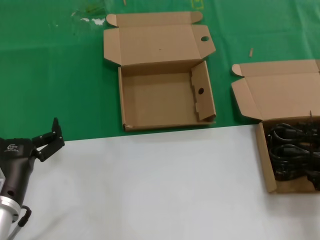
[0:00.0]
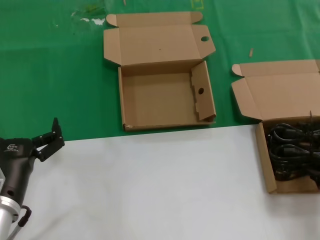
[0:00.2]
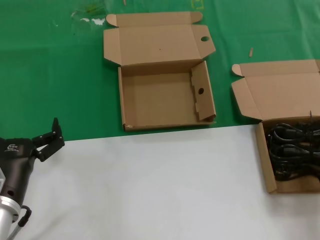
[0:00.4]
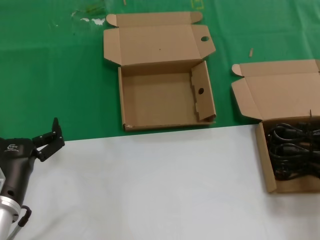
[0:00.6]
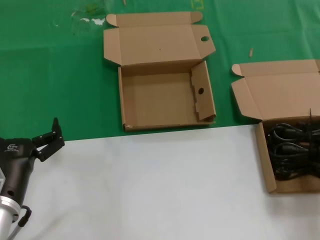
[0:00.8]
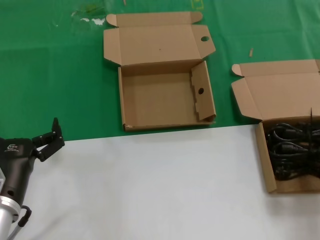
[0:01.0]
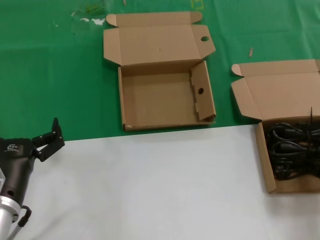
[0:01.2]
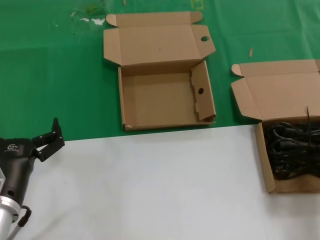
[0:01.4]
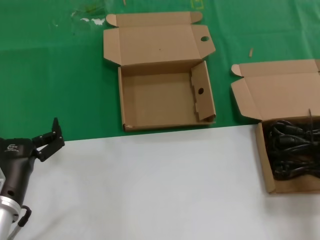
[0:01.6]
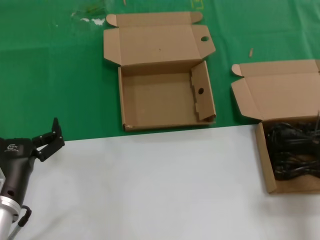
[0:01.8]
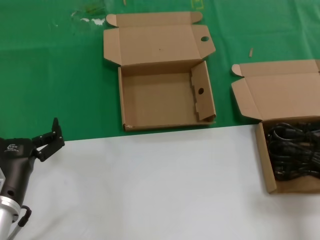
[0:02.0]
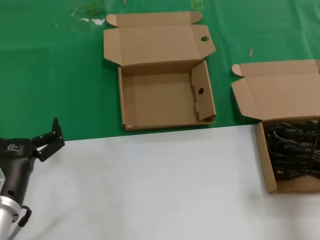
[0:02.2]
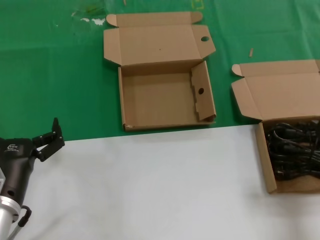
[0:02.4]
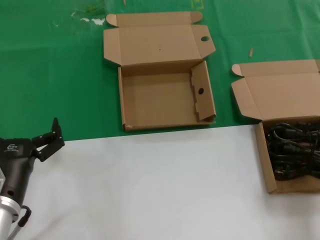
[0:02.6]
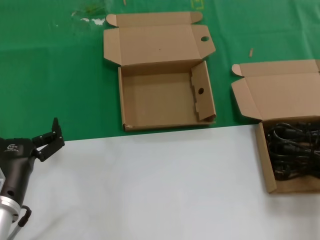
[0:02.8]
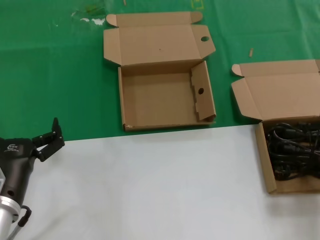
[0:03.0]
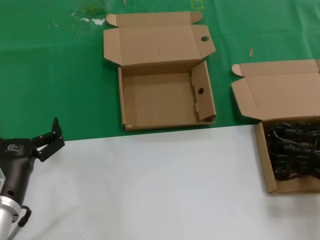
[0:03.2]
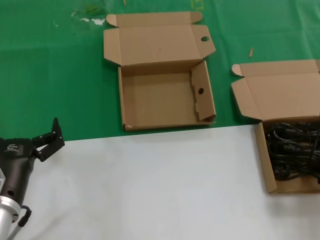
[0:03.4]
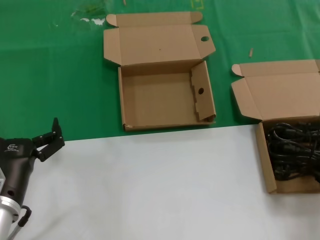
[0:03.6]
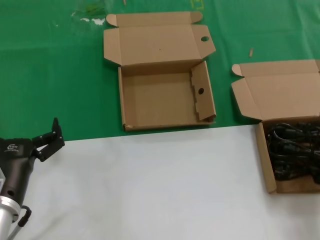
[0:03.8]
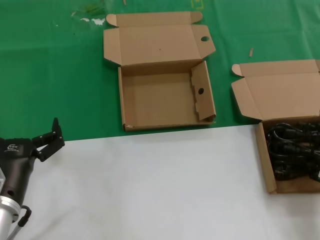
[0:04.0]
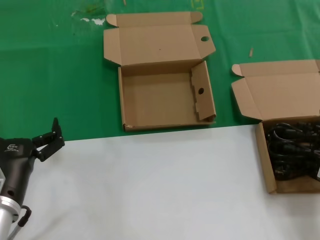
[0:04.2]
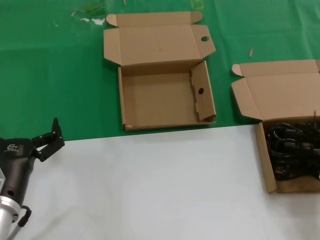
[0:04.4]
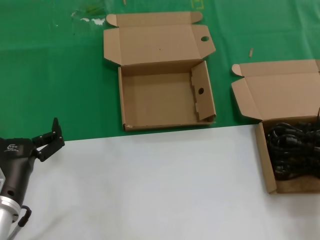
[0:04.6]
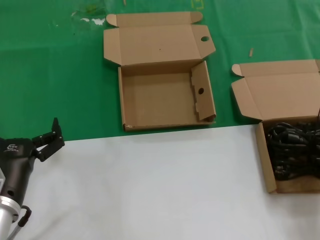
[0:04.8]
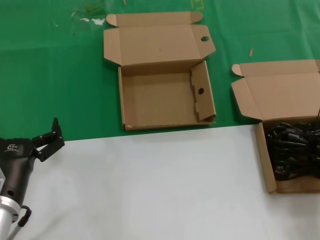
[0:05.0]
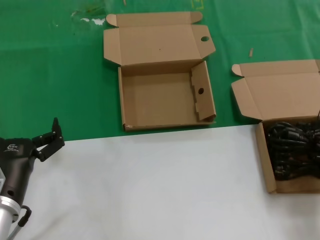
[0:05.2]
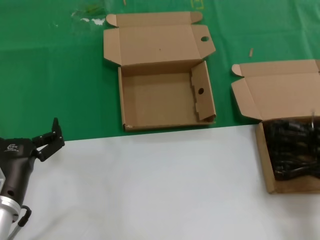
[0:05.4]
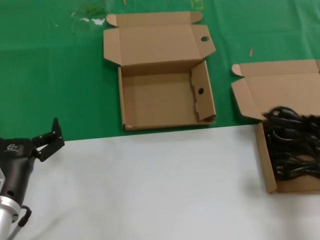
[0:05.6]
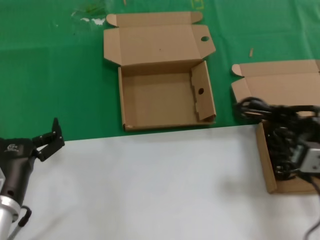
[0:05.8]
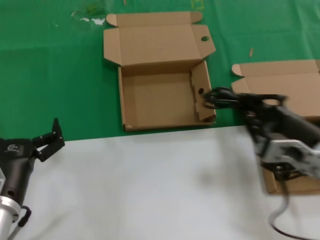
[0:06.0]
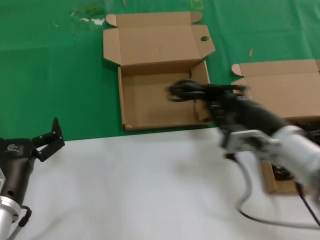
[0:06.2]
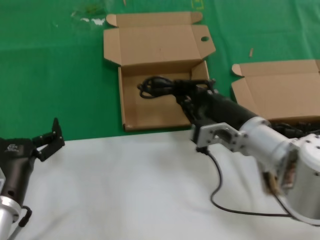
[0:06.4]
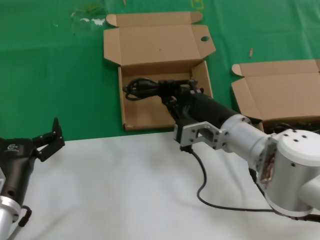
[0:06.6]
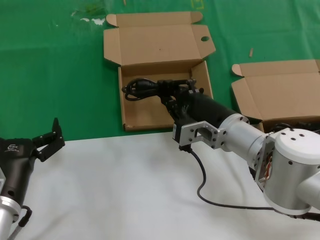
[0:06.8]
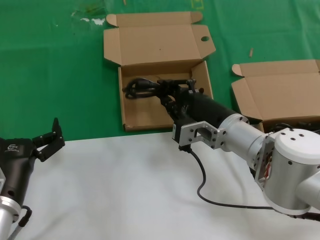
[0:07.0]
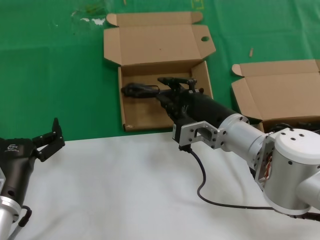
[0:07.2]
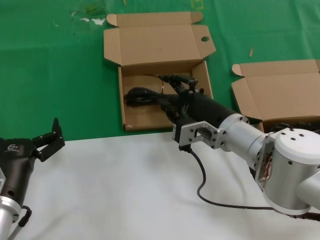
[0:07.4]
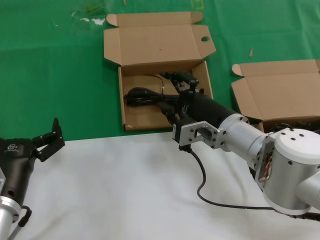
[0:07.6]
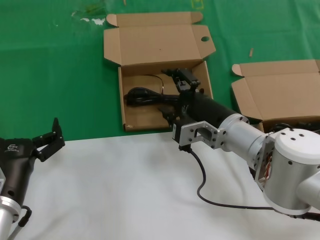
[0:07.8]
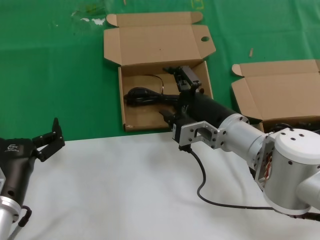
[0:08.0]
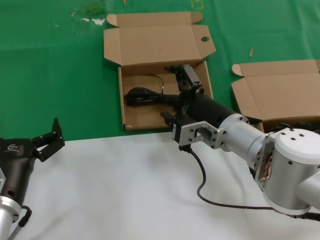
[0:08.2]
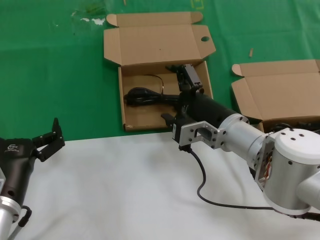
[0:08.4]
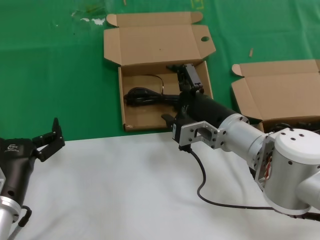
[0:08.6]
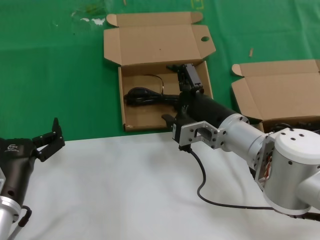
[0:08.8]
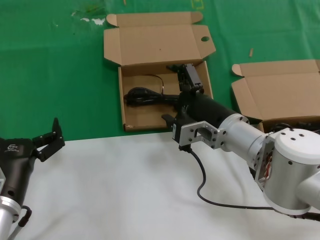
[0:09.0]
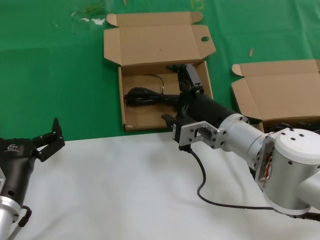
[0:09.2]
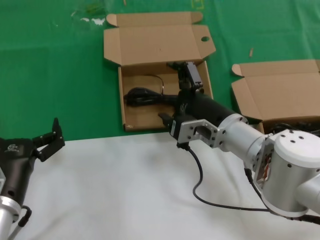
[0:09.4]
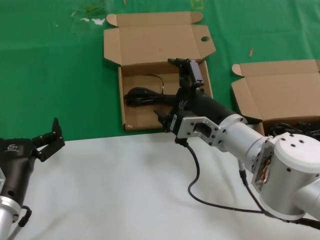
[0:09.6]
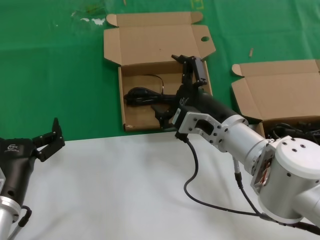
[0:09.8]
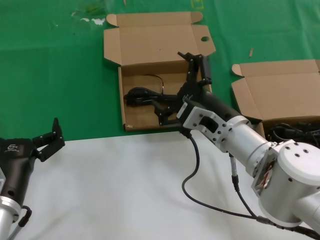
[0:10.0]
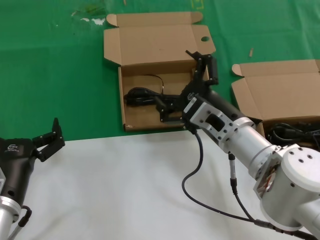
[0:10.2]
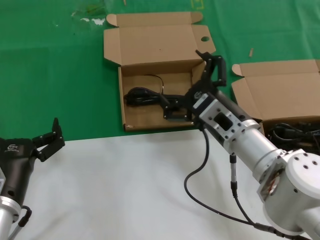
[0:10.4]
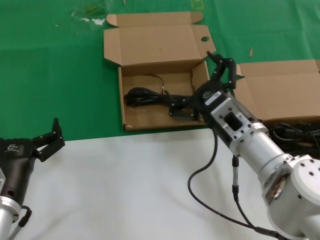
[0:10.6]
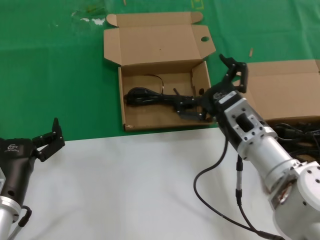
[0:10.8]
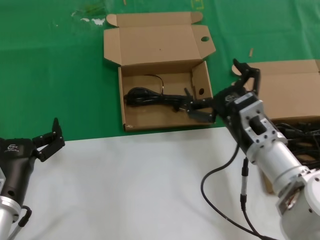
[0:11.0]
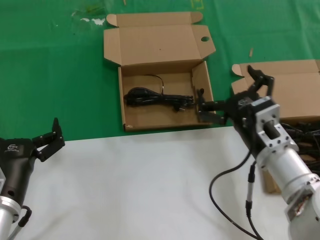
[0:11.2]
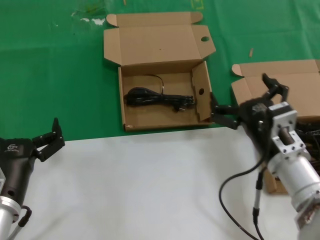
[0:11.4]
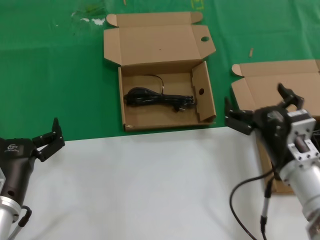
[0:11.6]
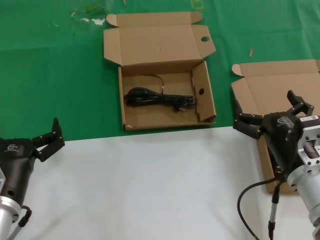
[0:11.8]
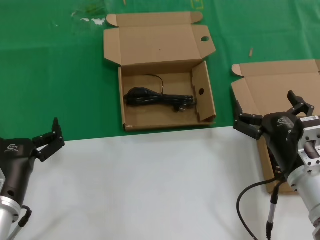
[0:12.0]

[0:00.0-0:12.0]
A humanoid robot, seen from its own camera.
Task of the whole recording: take the parts from the box containing them and put them into an empty box.
Step, 0:01.6 to 0:08.8: Place the data cable in the another box.
0:04.4 to 0:06.0: The right hand travels to the left by some 10 cm.
0:06.0 to 0:07.6: The right hand goes some 15 cm to the left and forward.
0:07.6 to 0:09.0: The two hands keep their place.
0:10.4 to 0:12.0: The right hand goes about 10 cm to the right and backward.

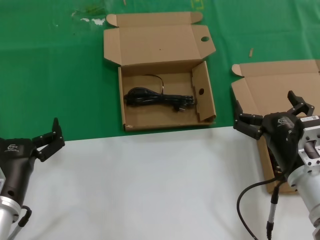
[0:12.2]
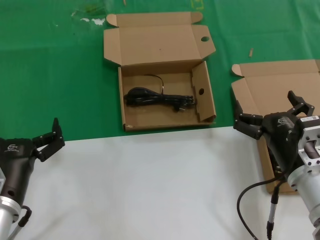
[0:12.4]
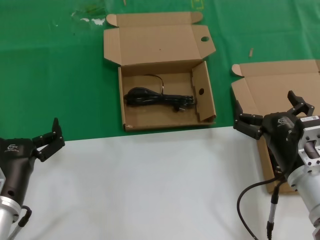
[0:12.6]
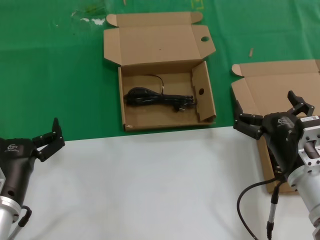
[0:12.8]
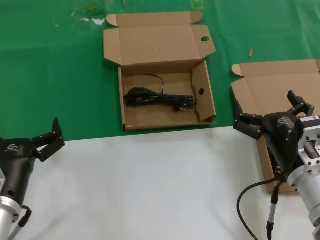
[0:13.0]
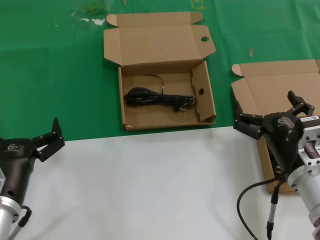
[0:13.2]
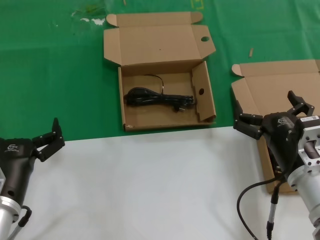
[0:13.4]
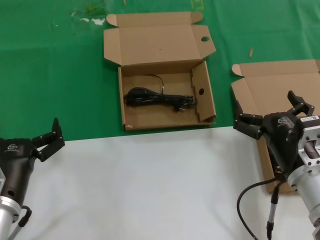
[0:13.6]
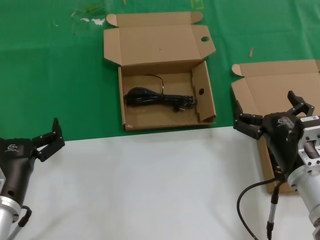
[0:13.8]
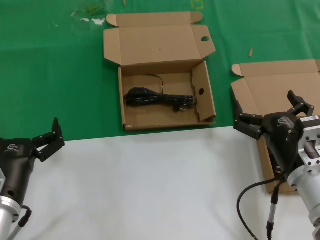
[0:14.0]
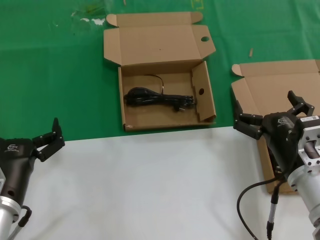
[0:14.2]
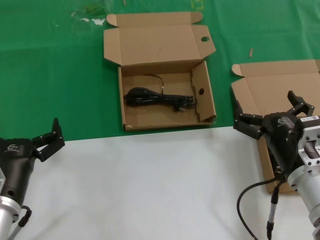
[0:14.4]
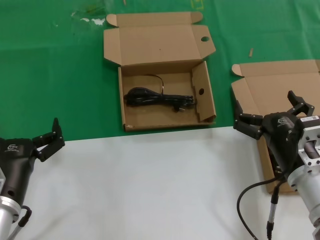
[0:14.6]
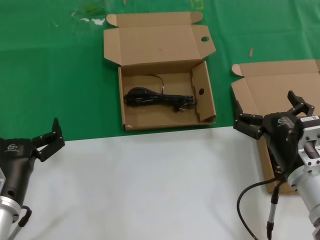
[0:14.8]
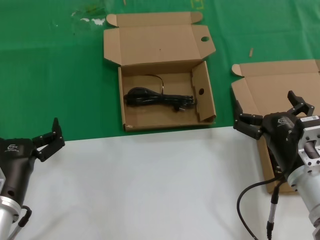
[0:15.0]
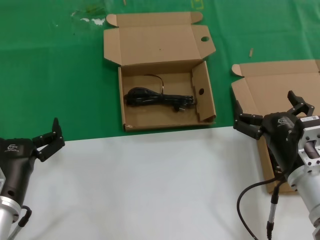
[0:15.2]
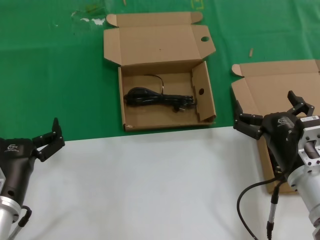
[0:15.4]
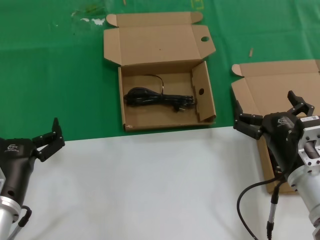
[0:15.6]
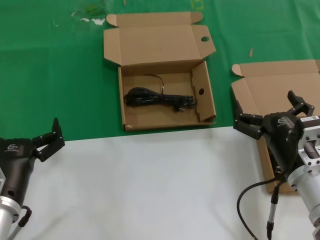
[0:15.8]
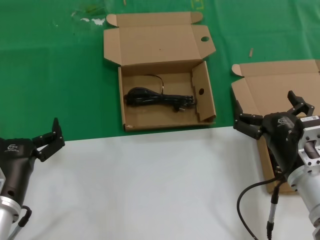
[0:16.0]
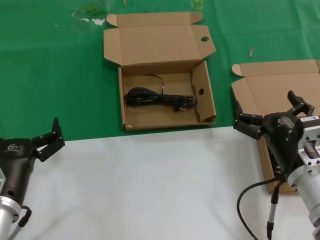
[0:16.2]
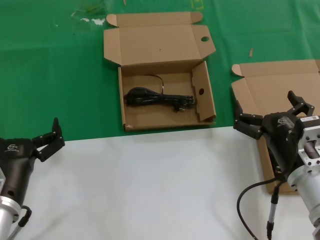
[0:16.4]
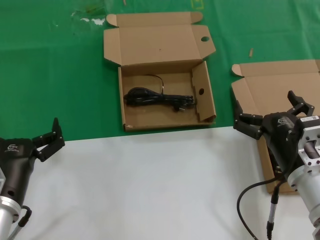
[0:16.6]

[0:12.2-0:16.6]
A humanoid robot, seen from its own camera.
Task of the whole recording: take the parts from the box containing them and put them into an empty box.
0:12.2 to 0:16.6: Both hands stay put.
